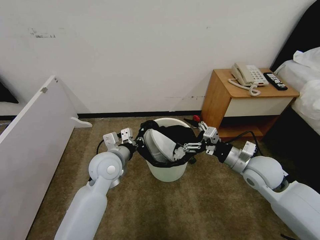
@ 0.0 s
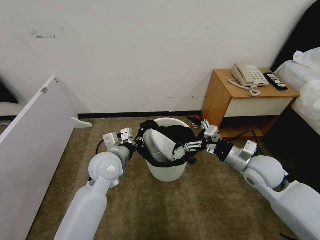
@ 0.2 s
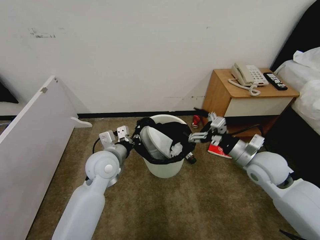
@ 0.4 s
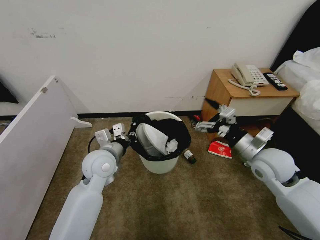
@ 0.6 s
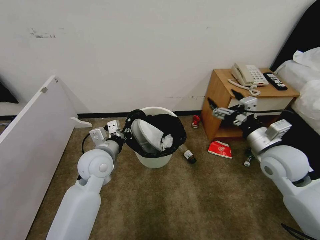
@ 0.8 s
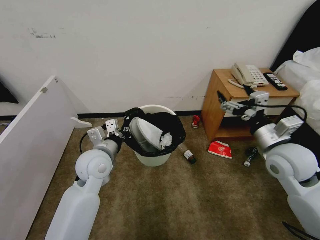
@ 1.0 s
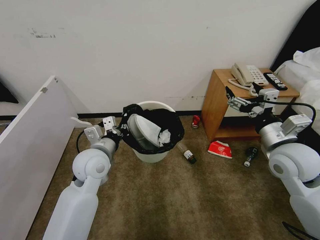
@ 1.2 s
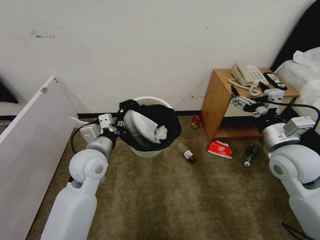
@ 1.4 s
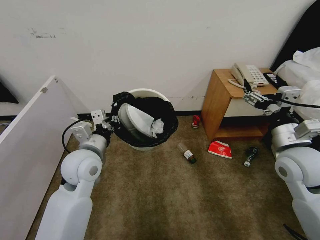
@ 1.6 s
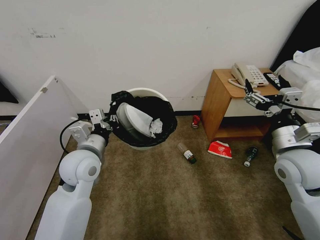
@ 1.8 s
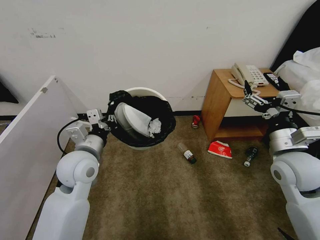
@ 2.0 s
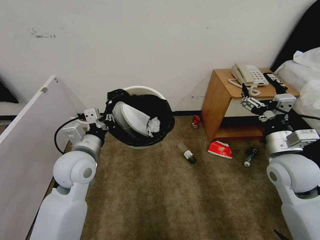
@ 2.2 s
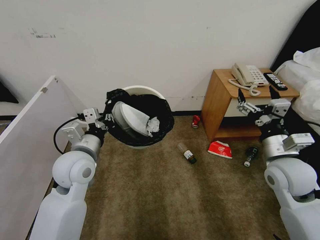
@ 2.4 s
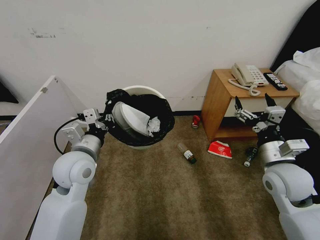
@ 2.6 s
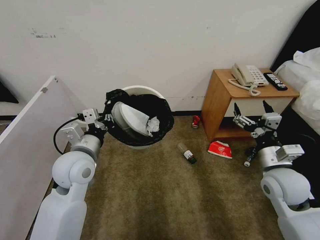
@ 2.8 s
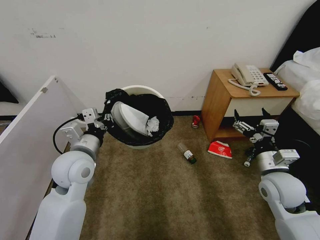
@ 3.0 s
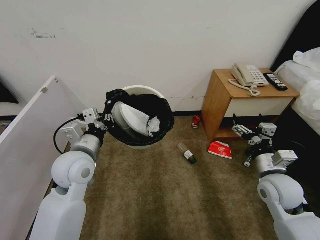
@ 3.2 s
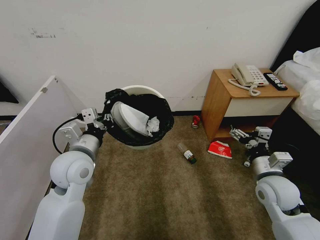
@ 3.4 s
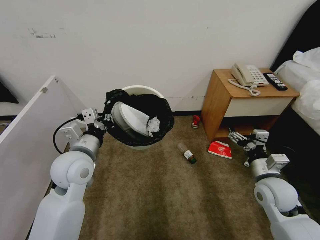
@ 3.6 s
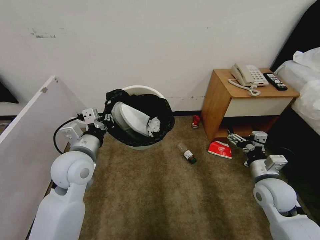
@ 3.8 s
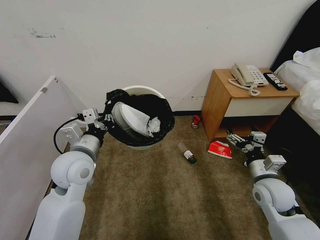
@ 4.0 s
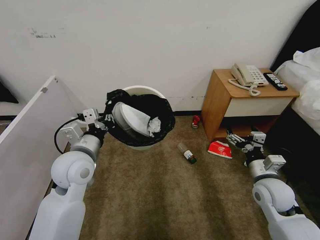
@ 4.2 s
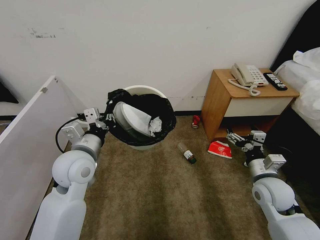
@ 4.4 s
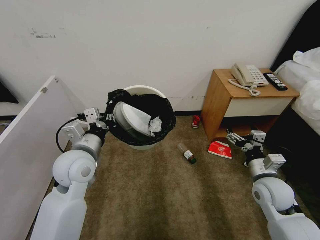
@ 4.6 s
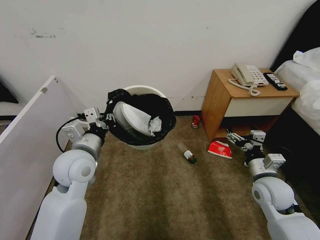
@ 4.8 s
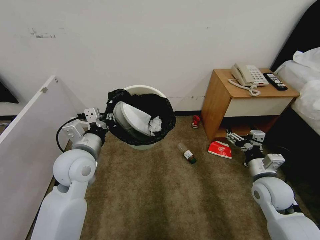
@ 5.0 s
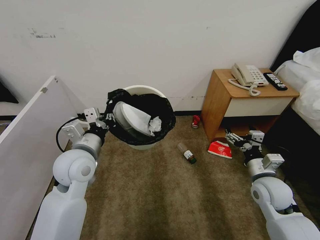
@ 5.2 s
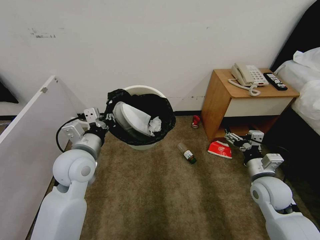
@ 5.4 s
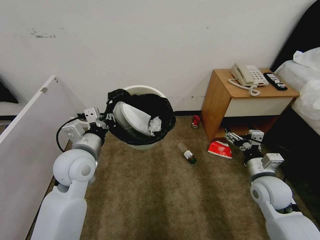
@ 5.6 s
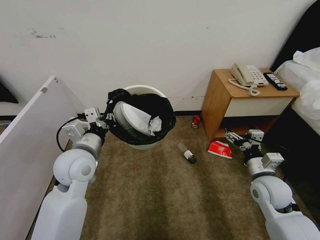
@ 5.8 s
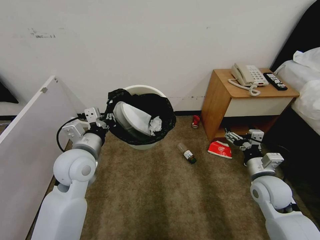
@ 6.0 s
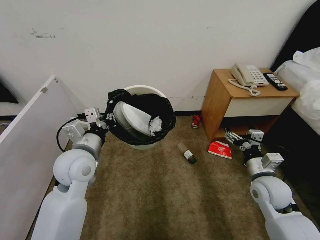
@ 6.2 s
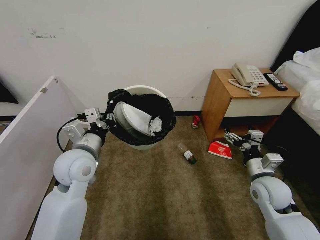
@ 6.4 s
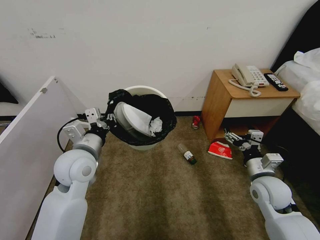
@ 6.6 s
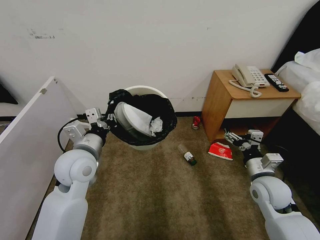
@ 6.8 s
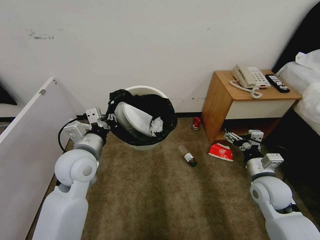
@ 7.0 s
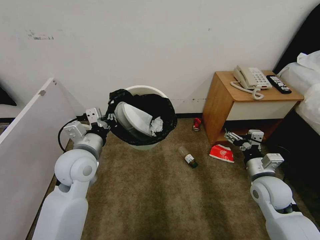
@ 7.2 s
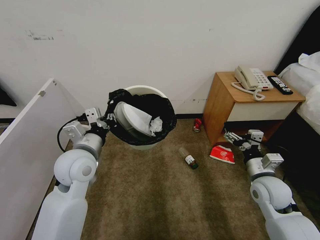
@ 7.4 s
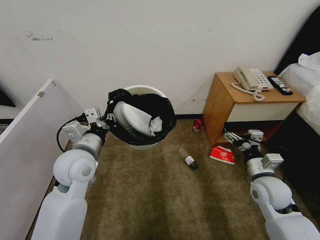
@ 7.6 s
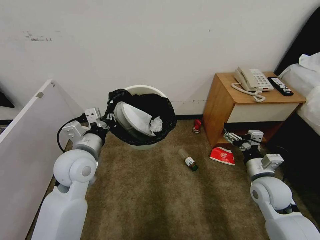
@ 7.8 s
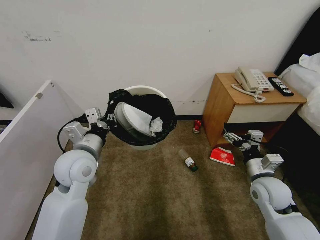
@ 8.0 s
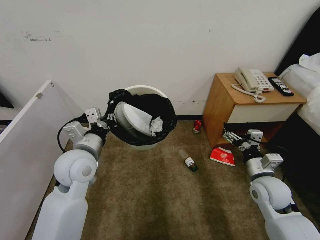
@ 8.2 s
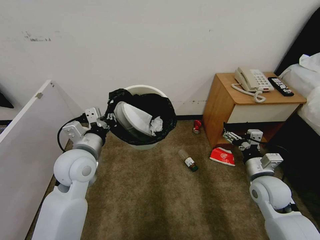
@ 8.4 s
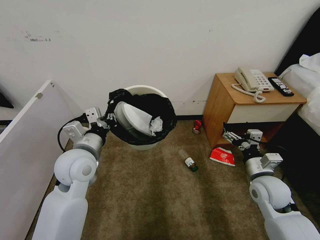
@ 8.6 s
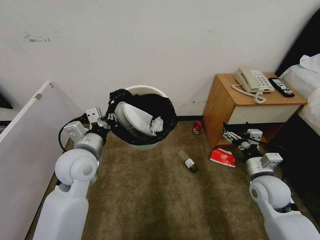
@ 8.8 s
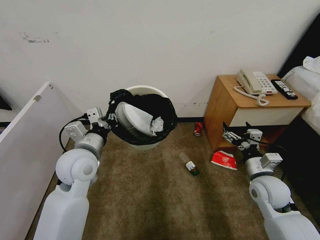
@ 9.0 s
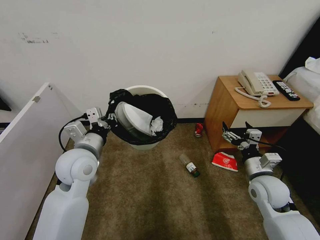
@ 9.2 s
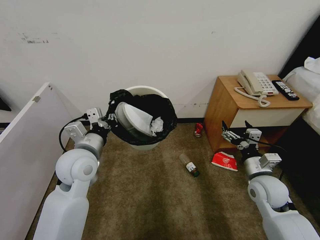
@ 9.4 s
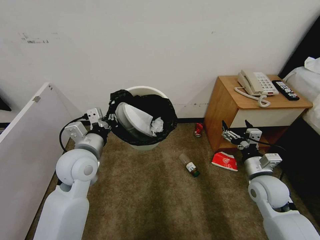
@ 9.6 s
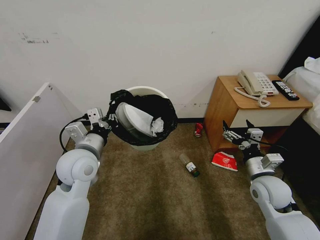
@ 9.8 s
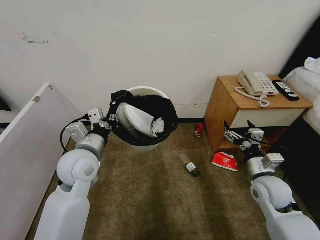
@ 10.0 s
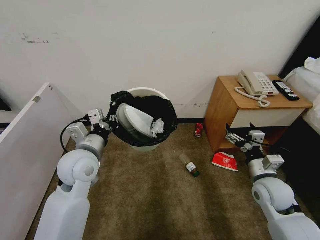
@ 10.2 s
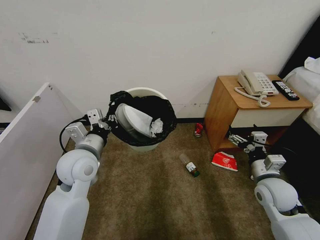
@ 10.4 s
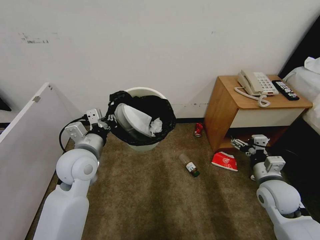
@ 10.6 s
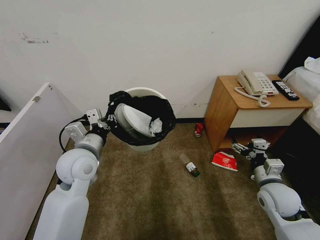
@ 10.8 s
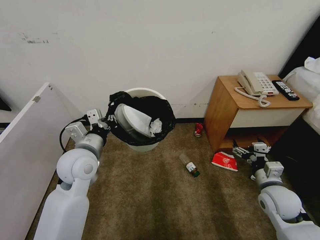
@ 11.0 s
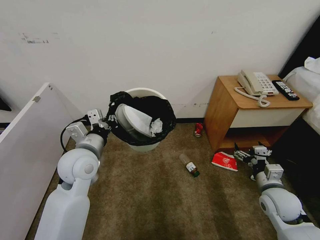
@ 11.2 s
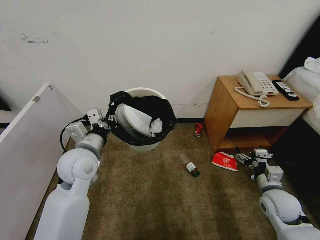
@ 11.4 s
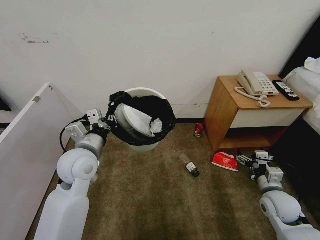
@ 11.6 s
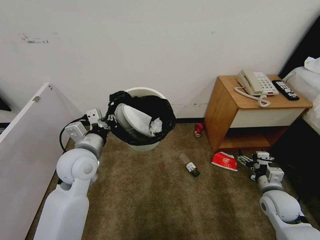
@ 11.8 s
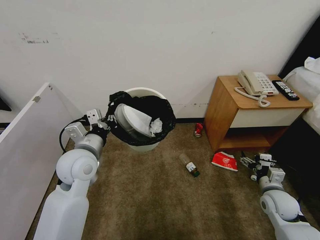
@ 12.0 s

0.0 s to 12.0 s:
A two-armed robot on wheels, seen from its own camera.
Task of the whole recording: Pick up the trash bin, then pick up the garbage from the floor and place it into the trash bin.
0.0 to 1.6 s: The left gripper moves some 5 cm, while the right gripper moves upward, roughly 10 cm.
1.6 to 3.0 s: The right gripper is displaced downward by about 10 cm.
3.0 to 4.4 s: The grippers move only a little.
4.4 to 9.0 s: Neither gripper changes place.
9.0 to 10.4 s: The grippers move only a little.
10.4 to 12.0 s: The right gripper heads downward and to the right, covering roughly 10 cm.

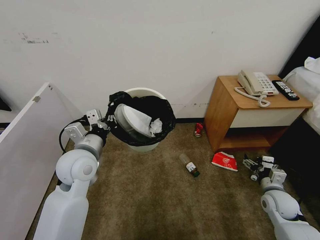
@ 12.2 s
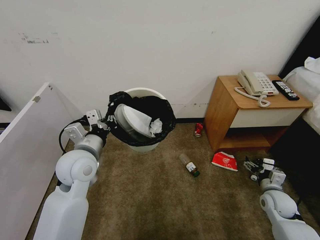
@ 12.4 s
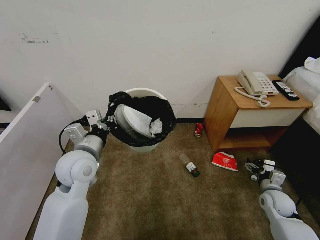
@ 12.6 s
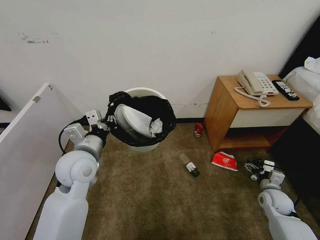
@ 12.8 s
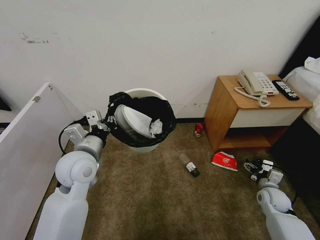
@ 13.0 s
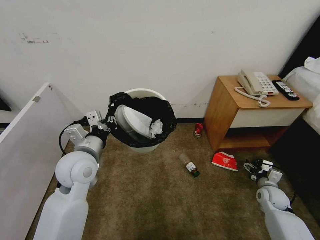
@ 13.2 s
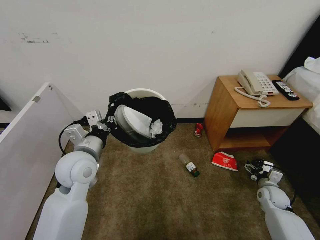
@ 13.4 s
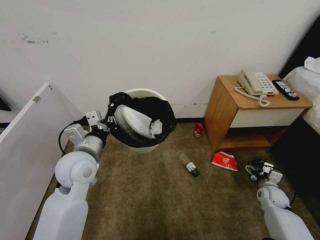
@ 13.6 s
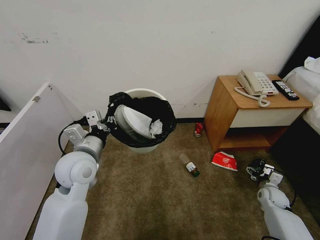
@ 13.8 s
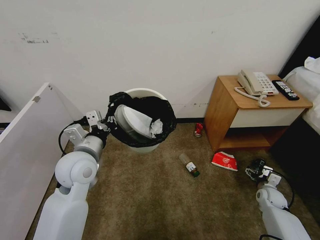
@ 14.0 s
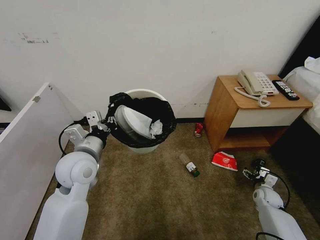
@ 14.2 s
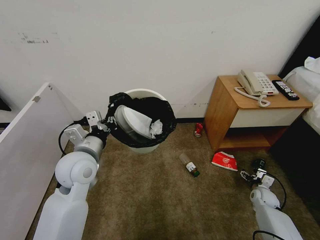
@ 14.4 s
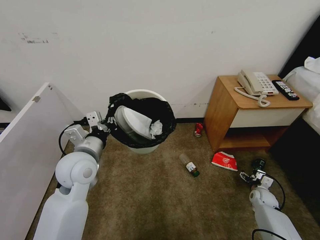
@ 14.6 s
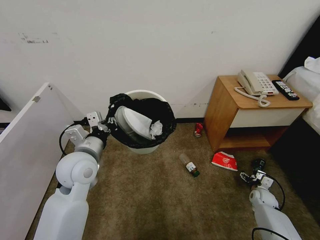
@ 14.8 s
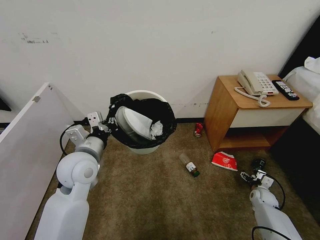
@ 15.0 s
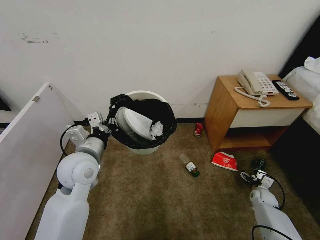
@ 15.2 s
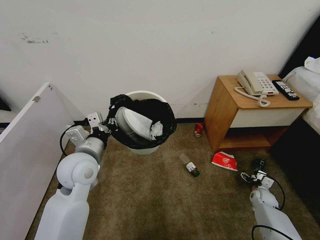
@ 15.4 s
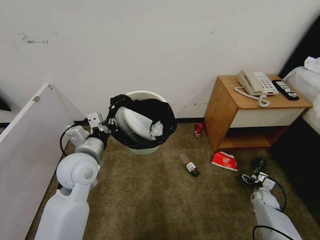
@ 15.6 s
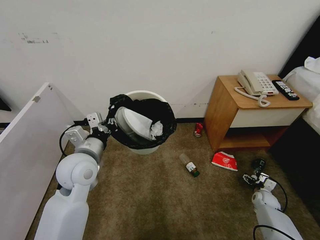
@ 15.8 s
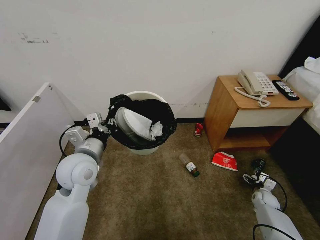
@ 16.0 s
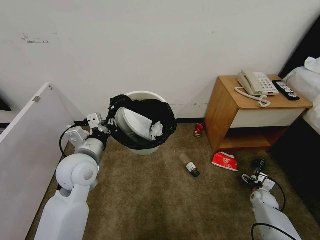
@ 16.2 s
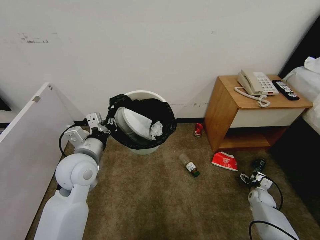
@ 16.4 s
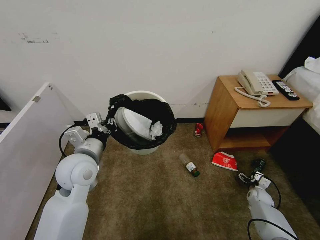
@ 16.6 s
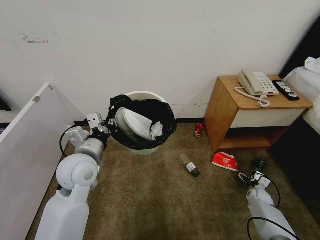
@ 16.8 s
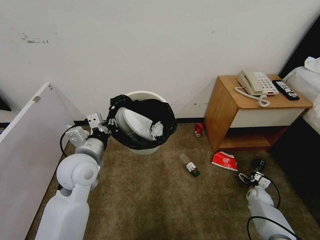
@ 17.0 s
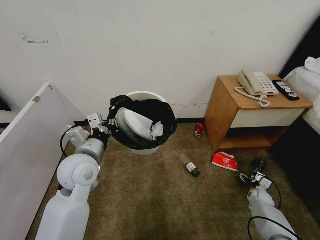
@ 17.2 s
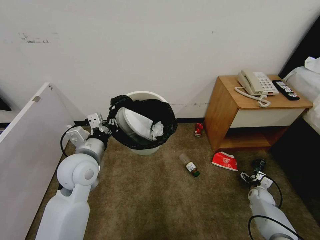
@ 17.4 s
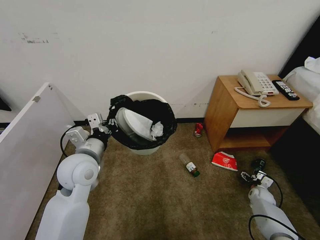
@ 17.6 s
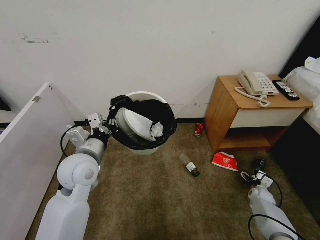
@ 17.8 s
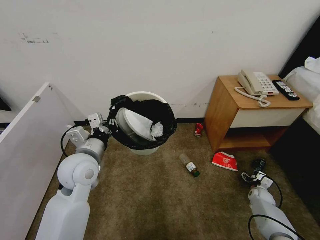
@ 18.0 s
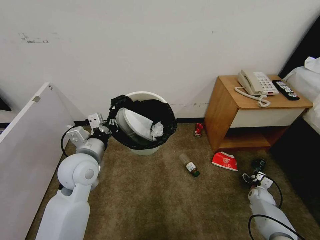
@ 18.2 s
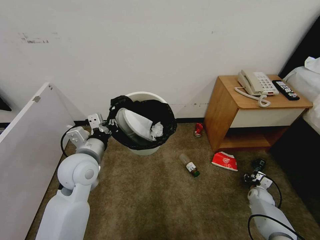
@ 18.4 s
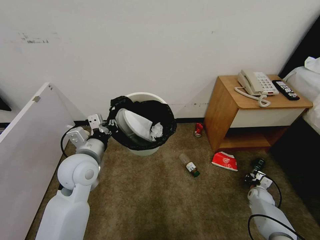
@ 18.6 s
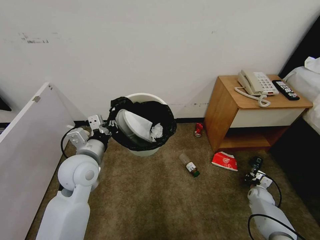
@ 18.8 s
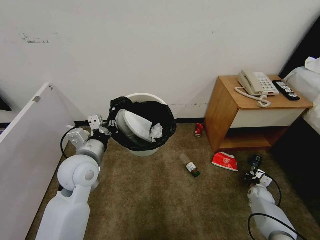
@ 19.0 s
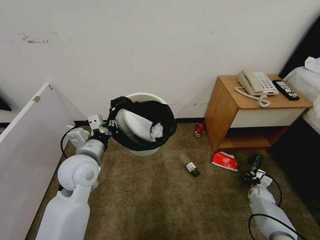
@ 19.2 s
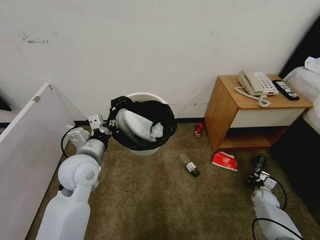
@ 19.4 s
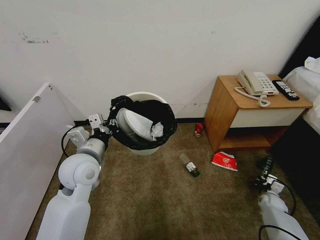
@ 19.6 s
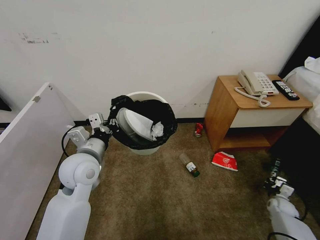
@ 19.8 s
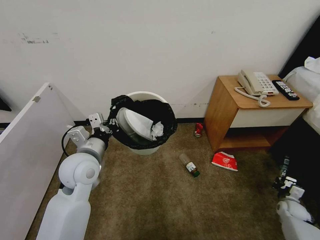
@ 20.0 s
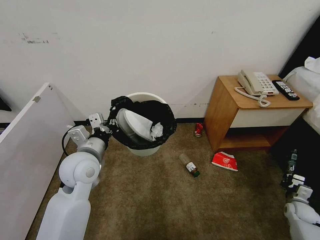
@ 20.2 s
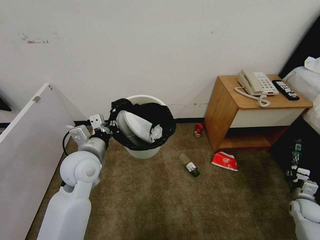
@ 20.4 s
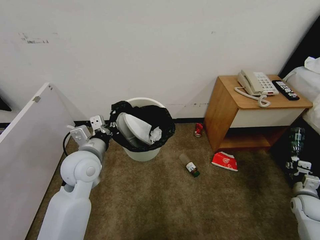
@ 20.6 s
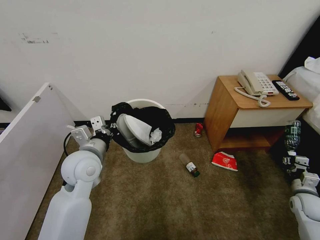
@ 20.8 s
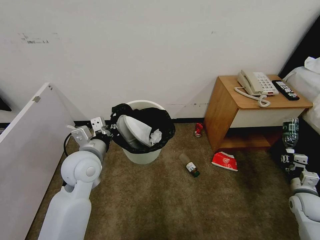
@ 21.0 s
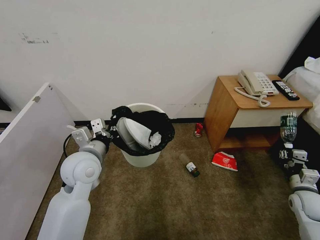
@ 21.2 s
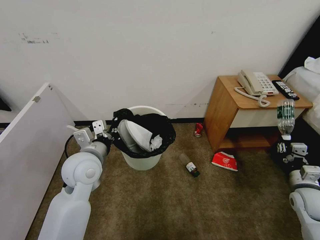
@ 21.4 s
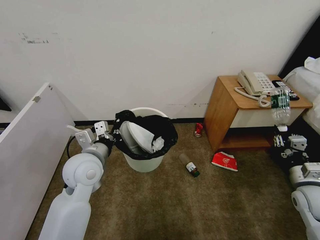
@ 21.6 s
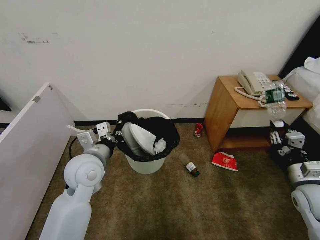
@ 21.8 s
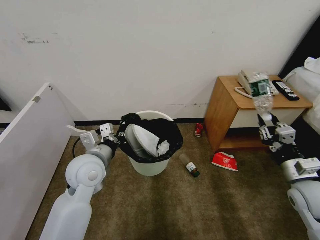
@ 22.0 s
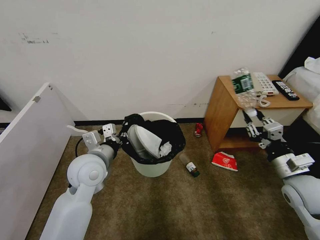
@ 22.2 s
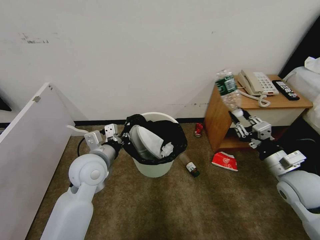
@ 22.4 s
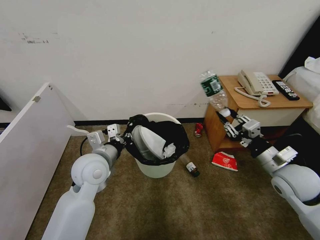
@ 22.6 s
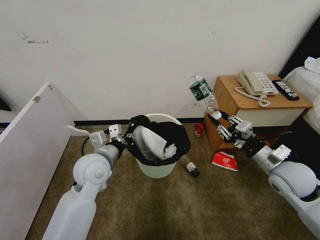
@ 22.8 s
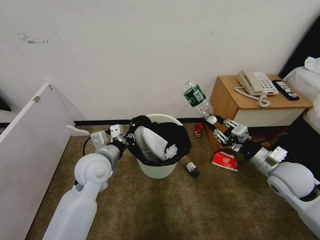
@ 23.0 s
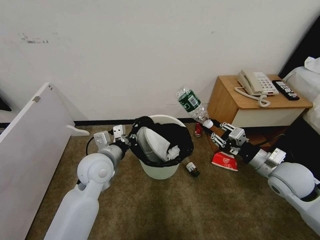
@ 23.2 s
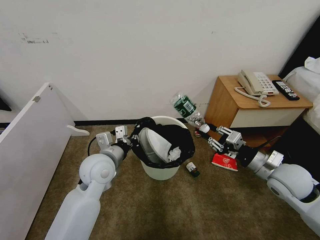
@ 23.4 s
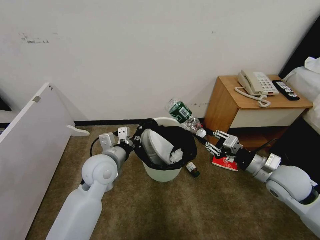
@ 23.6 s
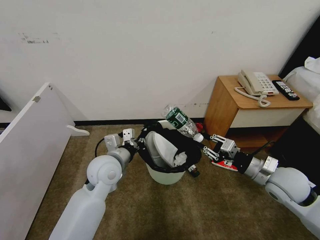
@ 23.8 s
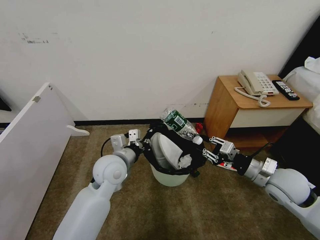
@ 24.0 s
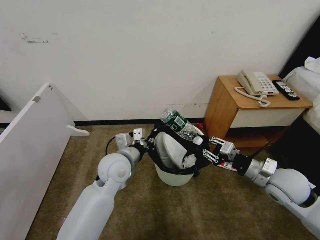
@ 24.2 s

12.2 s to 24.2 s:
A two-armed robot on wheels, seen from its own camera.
Task of the whole recording: Pick up the trash bin, then pick up the garbage from the floor and place it into the trash bin.
12.2 to 13.8 s: The right gripper moves downward, to the right and forward, about 10 cm.
13.8 to 15.2 s: The right gripper is displaced downward by some 5 cm.
15.2 to 16.6 s: The grippers stay close to where they were, moving slightly.
16.6 to 18.2 s: Neither gripper changes place.
18.2 to 19.8 s: The right gripper travels backward and to the right by approximately 5 cm, and closes up.
19.8 to 21.2 s: The right gripper moves upward, about 15 cm.
21.2 to 22.6 s: The right gripper shifts approximately 20 cm upward and to the left.
22.6 to 24.2 s: The left gripper travels to the right by some 5 cm.
